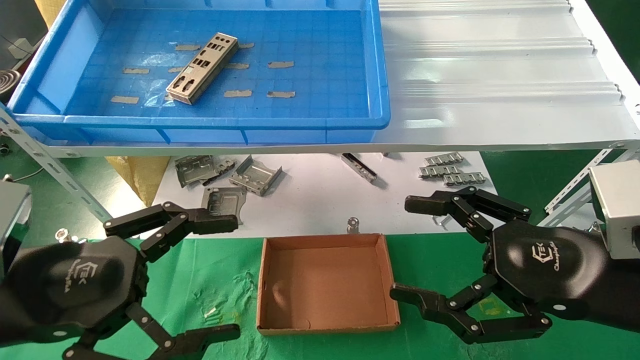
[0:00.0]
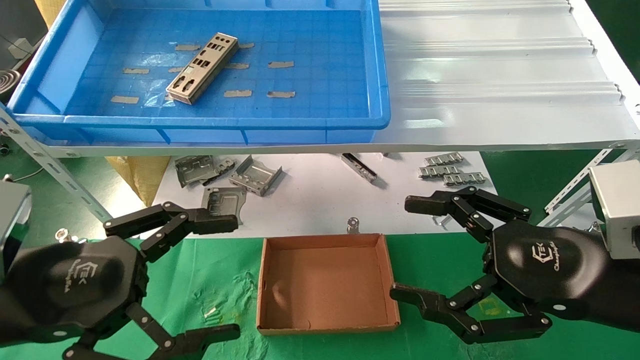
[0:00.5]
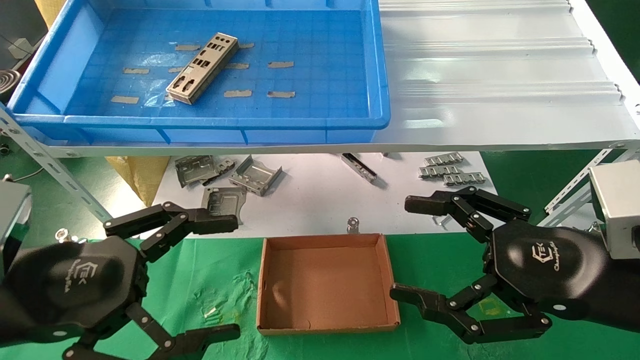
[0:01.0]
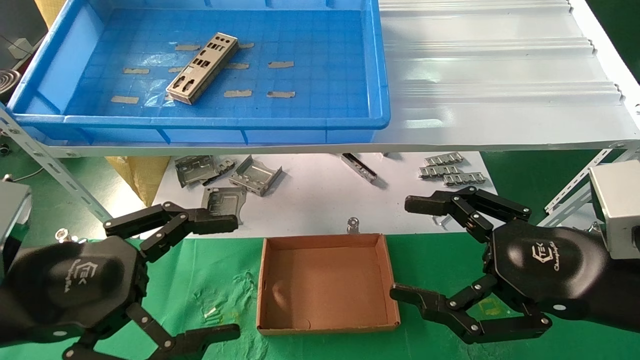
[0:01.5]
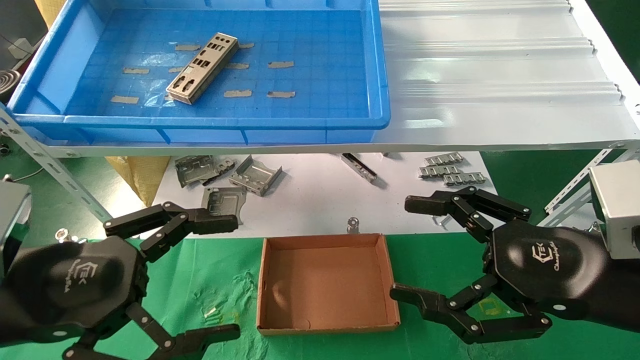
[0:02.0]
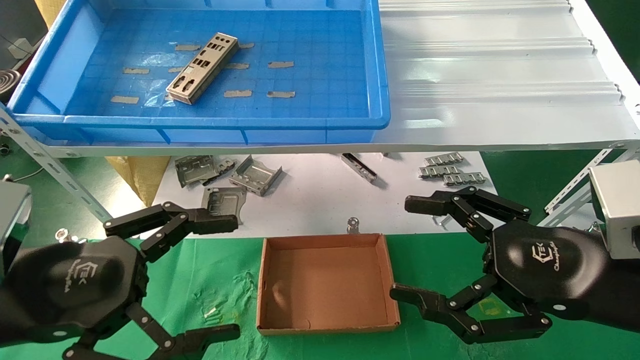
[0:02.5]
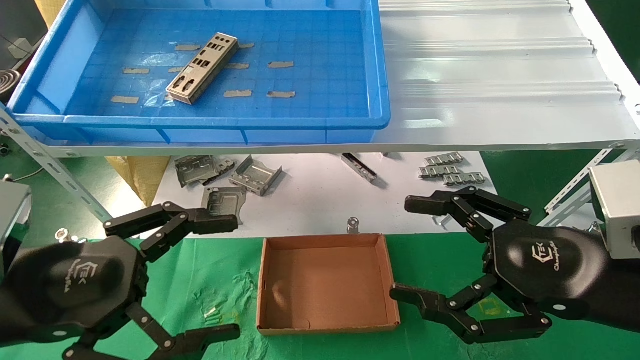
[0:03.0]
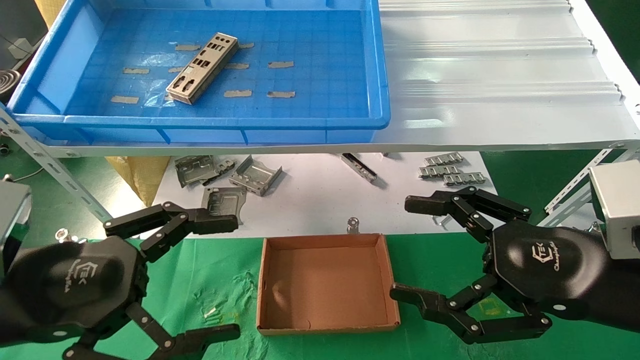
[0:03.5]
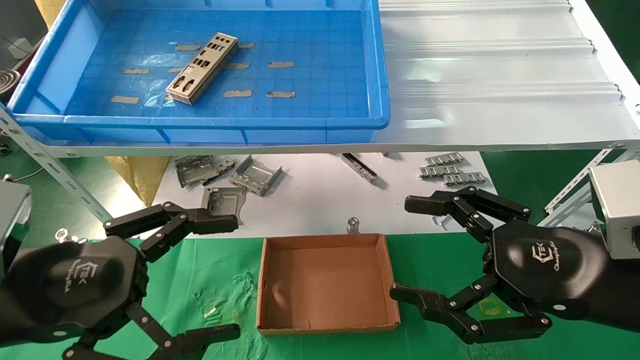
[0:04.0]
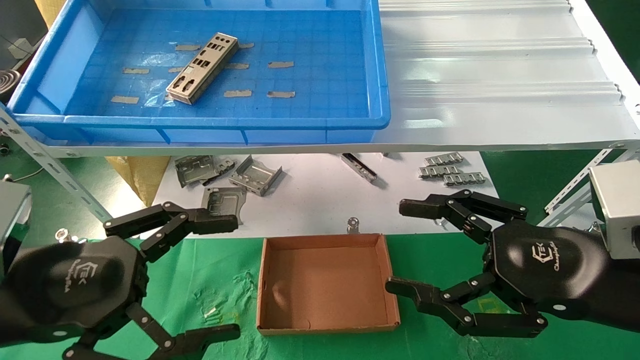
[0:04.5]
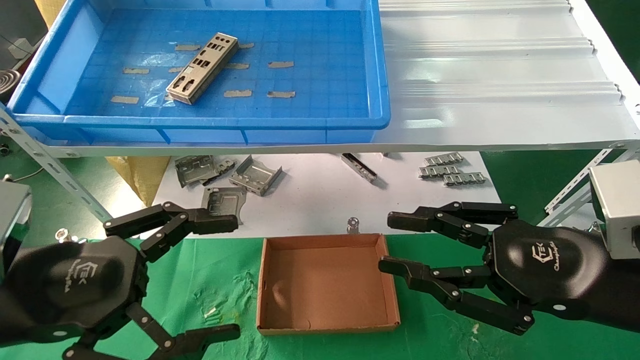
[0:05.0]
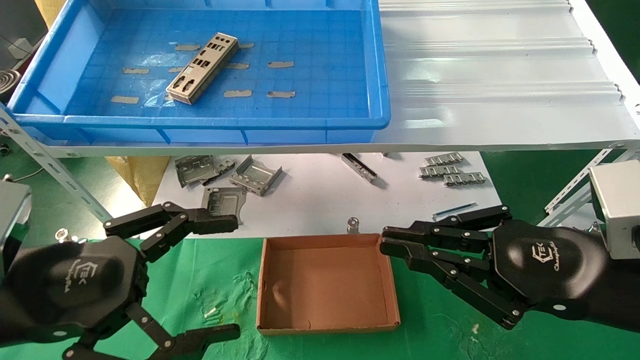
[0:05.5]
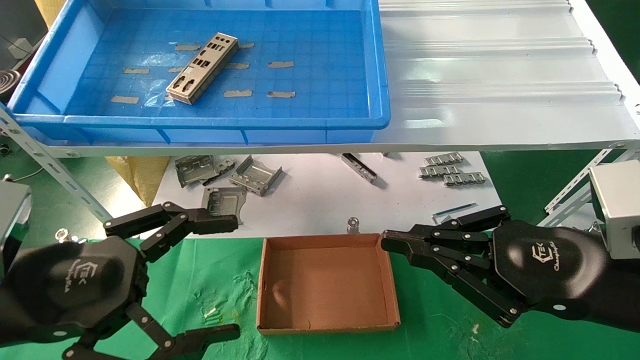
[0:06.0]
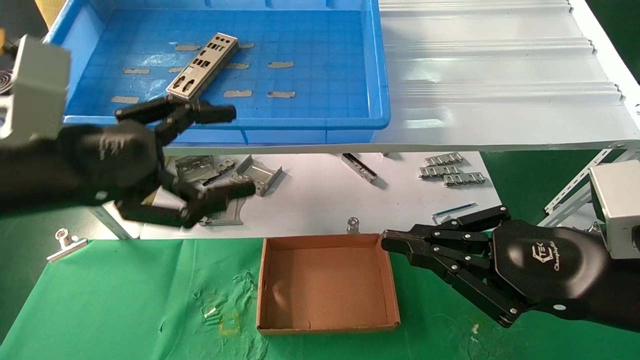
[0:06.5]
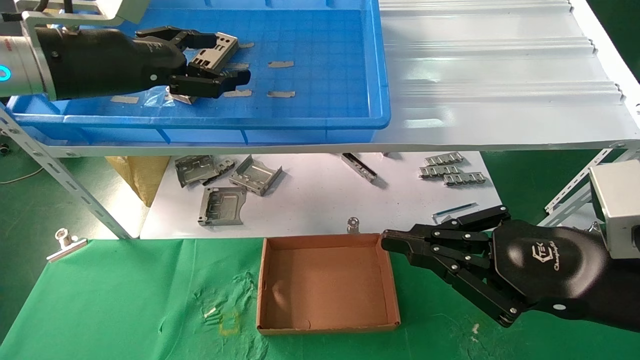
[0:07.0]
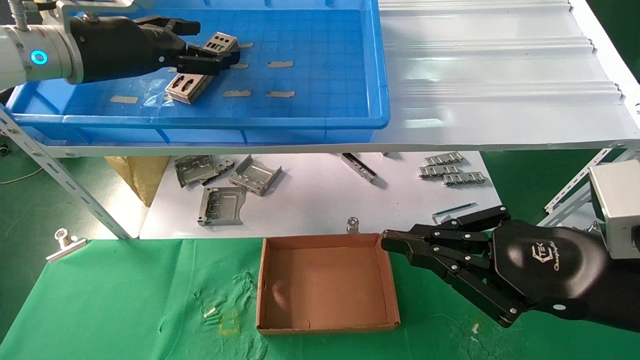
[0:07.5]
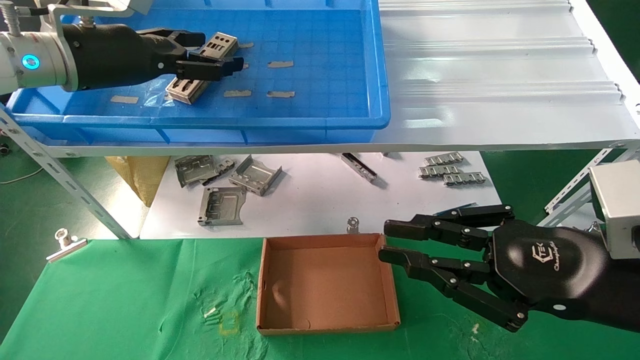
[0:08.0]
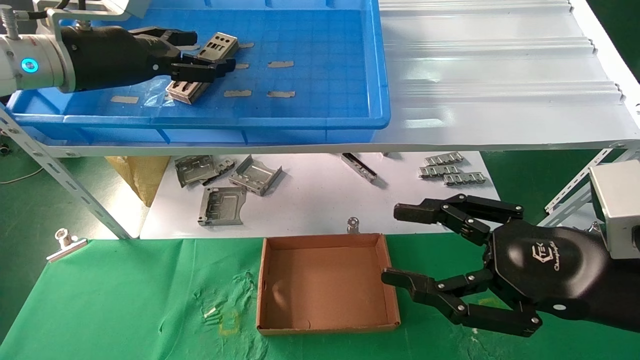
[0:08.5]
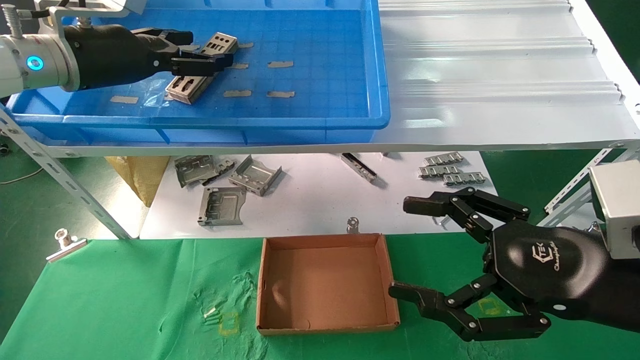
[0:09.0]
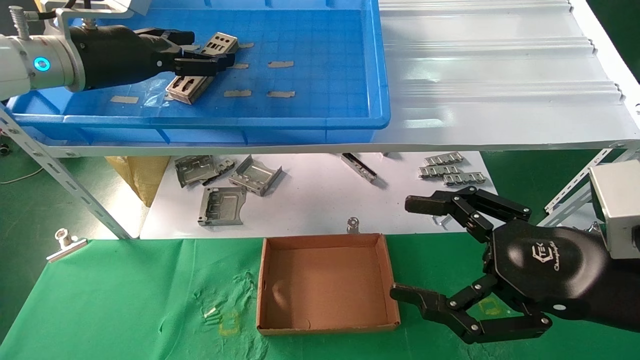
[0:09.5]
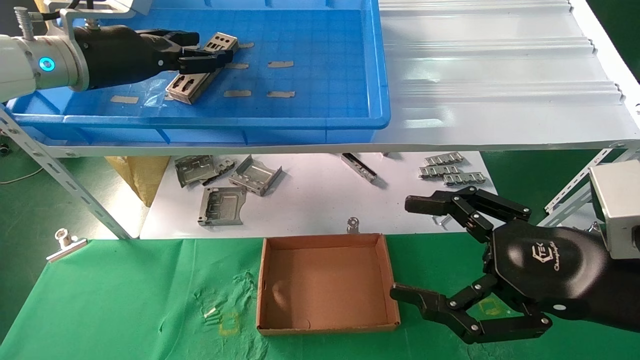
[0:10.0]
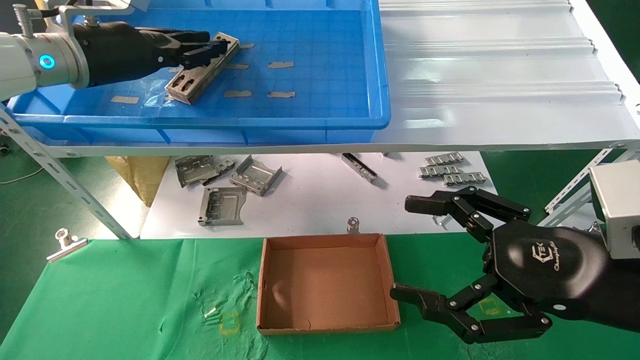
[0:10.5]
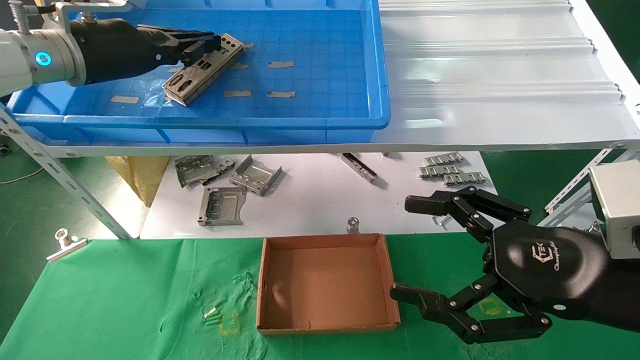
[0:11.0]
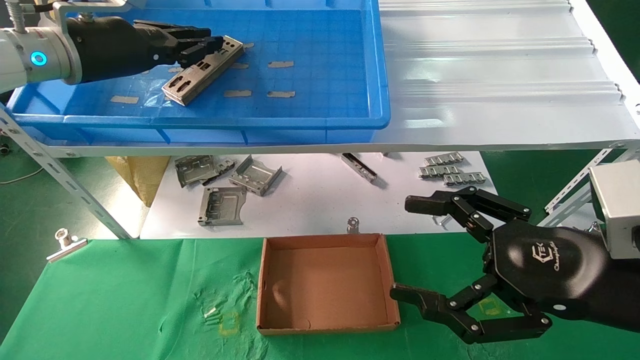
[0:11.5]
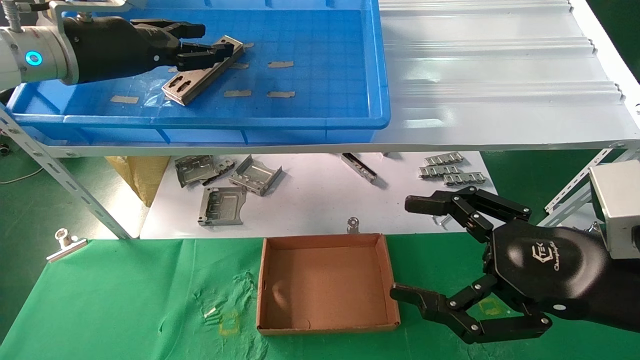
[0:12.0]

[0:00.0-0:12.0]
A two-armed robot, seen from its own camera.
Task of the whole recording: pick up the parts on the tray and put them in the cardboard box.
0:00.0 to 0:04.0: The two grippers keep their place.
0:04.0 to 0:06.0: The right gripper closes.
0:06.0 to 0:08.0: The left gripper is displaced forward and upward by about 25 cm.
0:08.0 to 0:10.0: The right gripper opens up.
0:10.0 to 0:12.0: The left gripper closes.

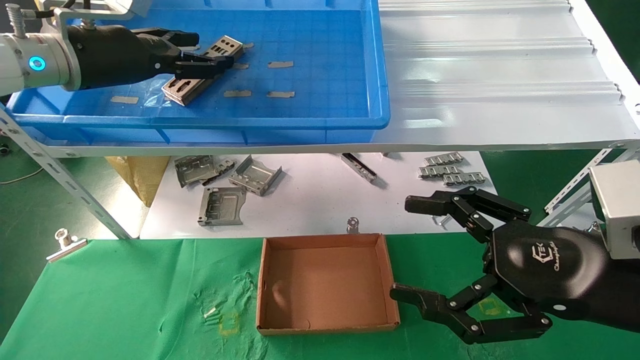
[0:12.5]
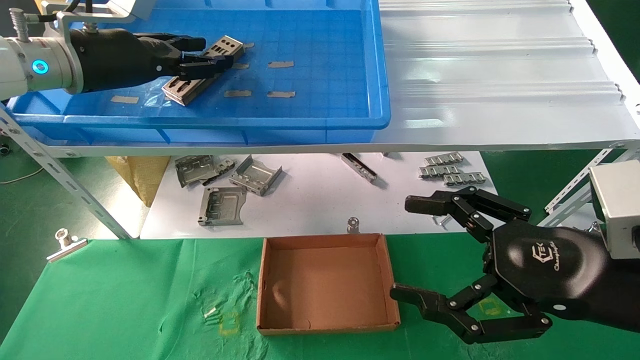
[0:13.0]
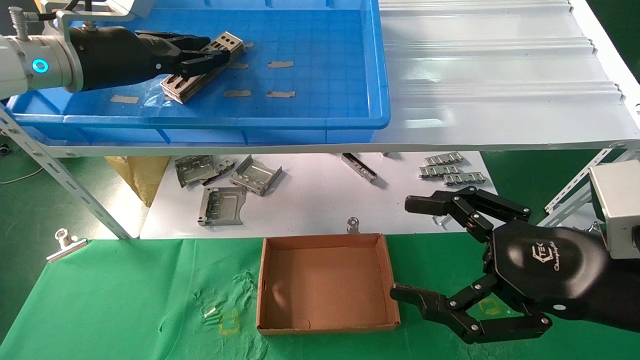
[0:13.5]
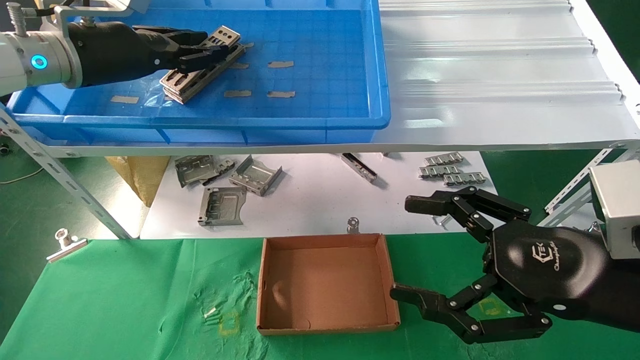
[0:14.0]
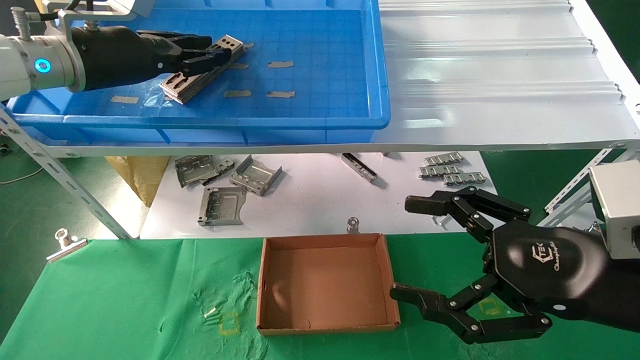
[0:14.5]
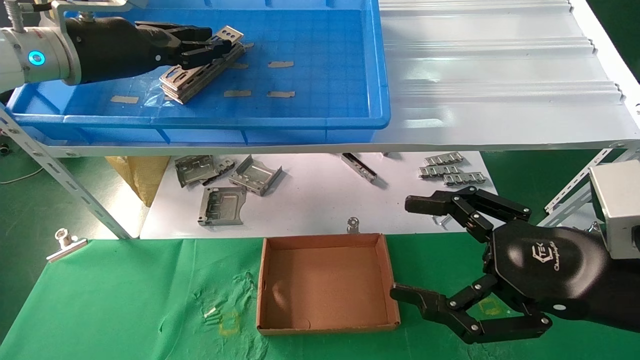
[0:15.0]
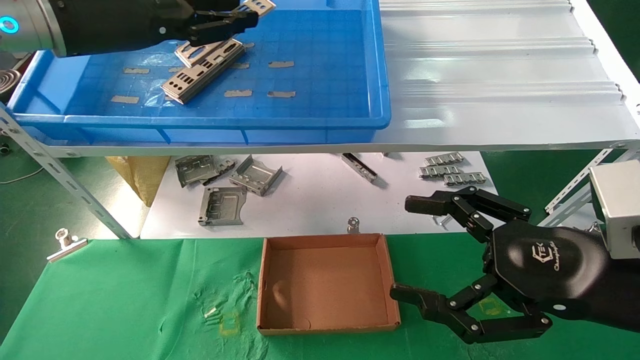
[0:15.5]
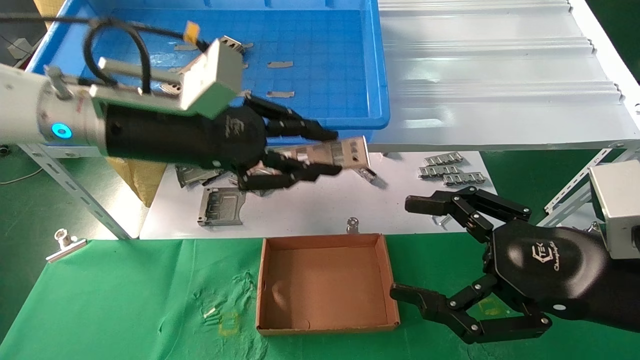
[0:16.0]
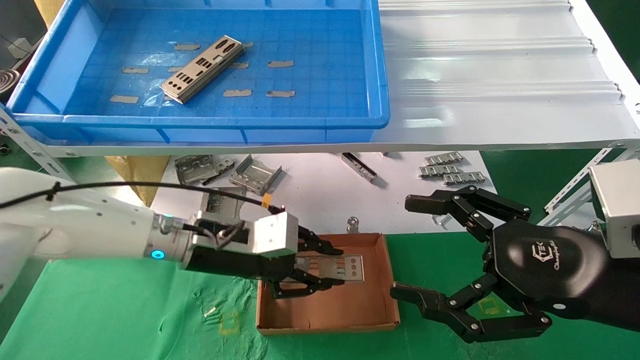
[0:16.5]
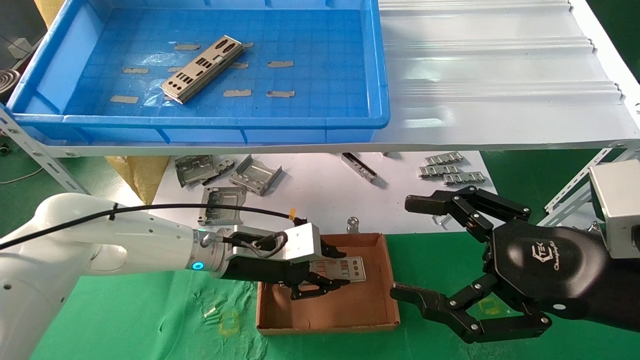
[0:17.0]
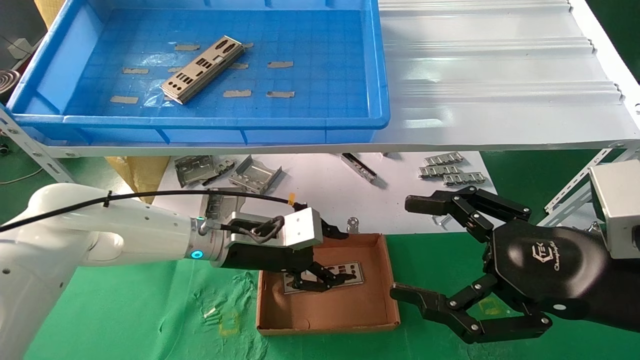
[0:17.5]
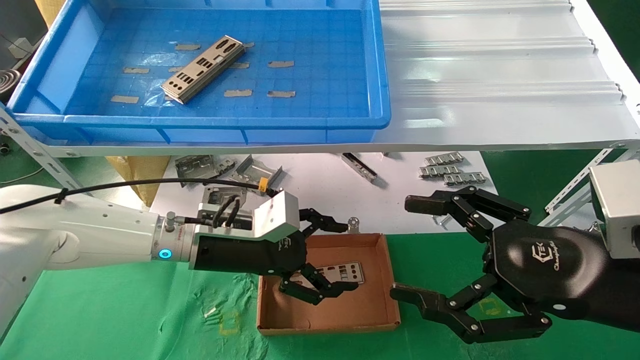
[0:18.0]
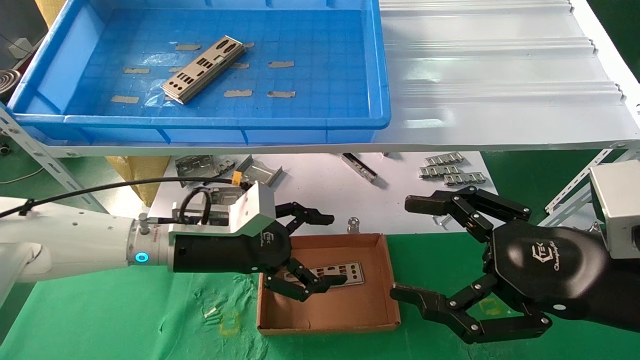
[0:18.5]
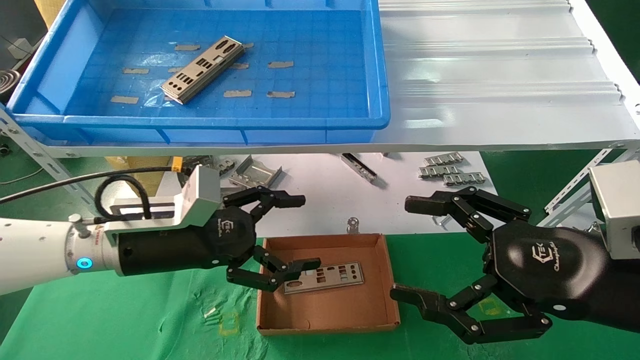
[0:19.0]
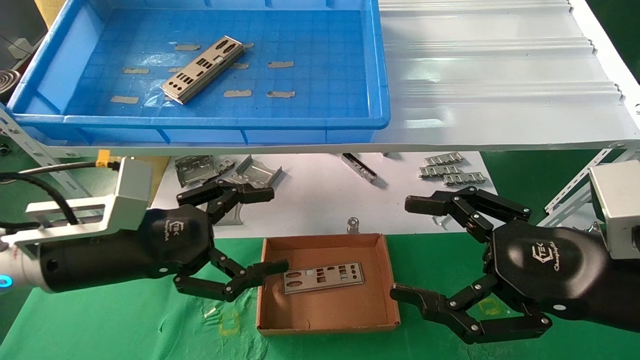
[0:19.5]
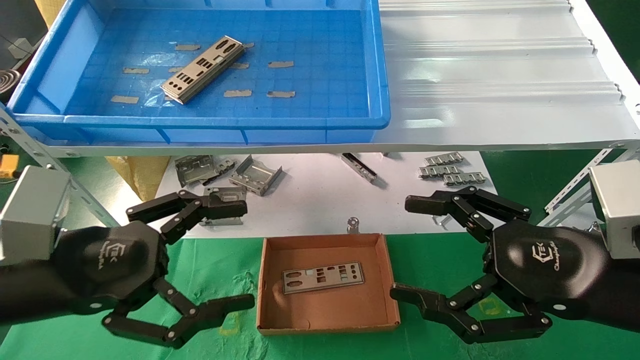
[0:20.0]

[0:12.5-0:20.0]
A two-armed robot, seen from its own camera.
Task of the whole recording: pick up the parts on the tray and put them in the cardboard box.
Step, 0:12.5 to 0:14.5: Pick up the IO bracket from the container box.
Step, 0:15.0 to 0:17.0: Place the IO bracket into the ingredient slot.
0:12.5 to 0:14.5: The left gripper closes up.
0:14.5 to 0:16.5: The left gripper moves downward and to the right, some 25 cm.
0:16.5 to 0:18.0: The left gripper opens.
0:18.0 to 0:20.0: The left gripper shifts about 20 cm backward and to the left.
